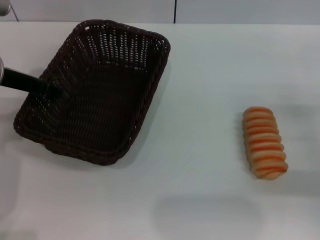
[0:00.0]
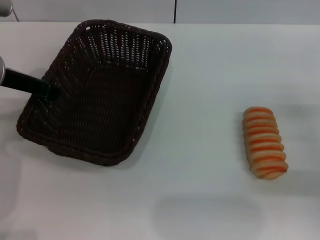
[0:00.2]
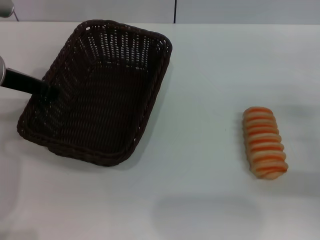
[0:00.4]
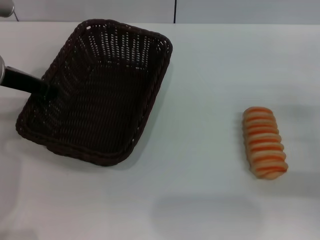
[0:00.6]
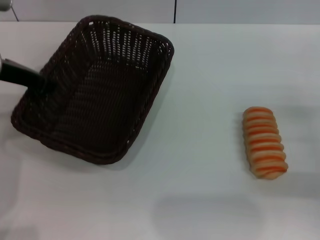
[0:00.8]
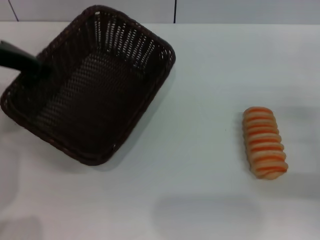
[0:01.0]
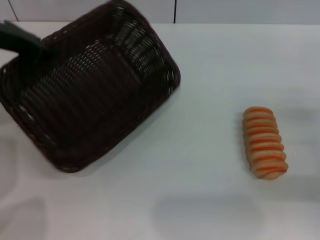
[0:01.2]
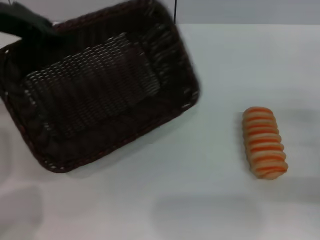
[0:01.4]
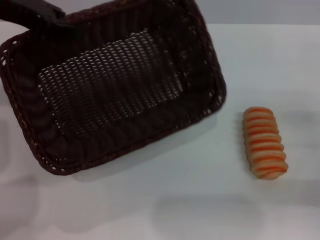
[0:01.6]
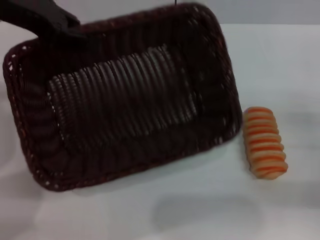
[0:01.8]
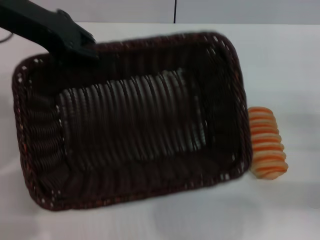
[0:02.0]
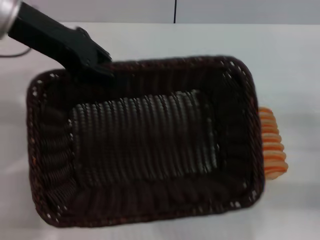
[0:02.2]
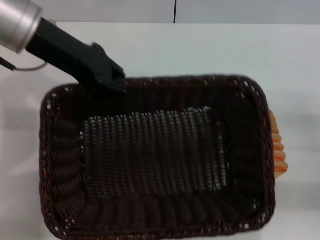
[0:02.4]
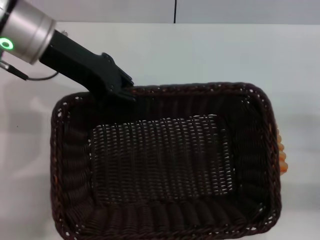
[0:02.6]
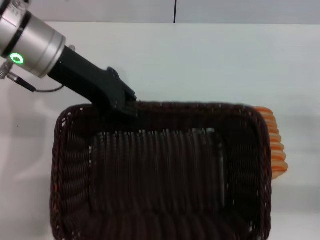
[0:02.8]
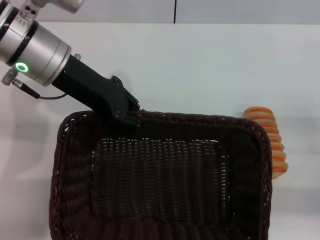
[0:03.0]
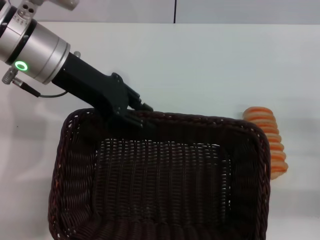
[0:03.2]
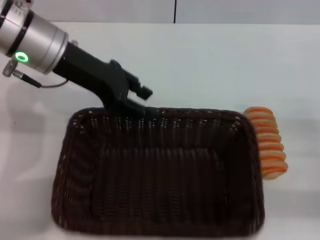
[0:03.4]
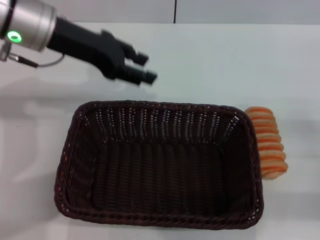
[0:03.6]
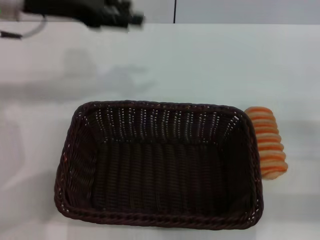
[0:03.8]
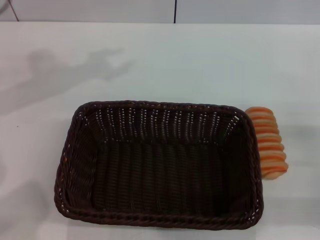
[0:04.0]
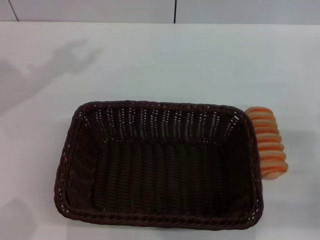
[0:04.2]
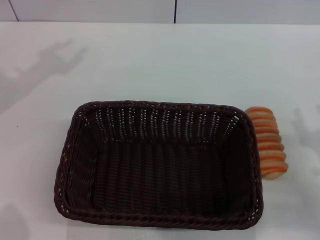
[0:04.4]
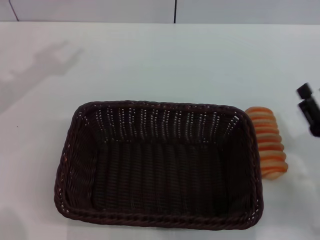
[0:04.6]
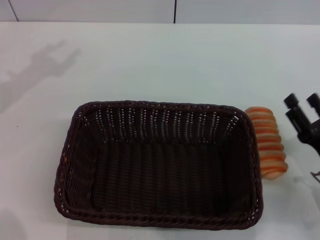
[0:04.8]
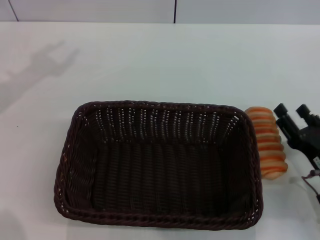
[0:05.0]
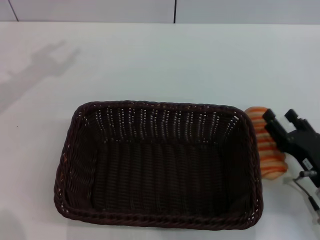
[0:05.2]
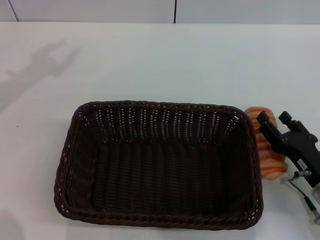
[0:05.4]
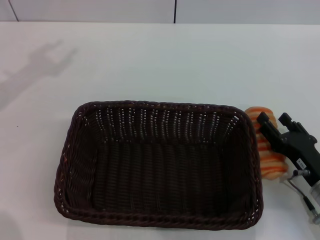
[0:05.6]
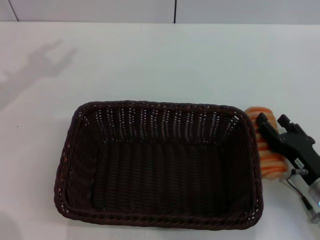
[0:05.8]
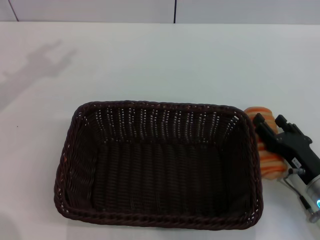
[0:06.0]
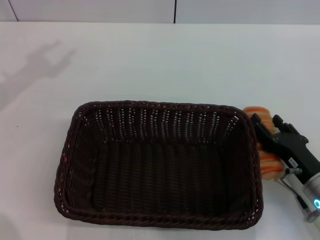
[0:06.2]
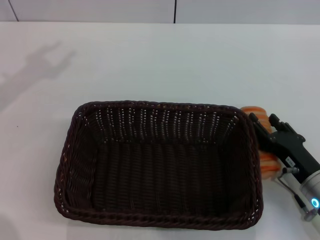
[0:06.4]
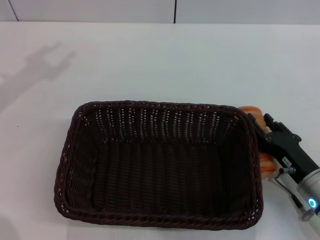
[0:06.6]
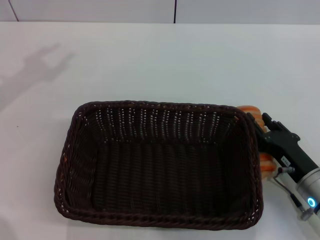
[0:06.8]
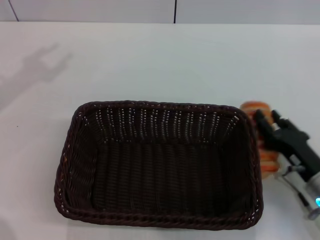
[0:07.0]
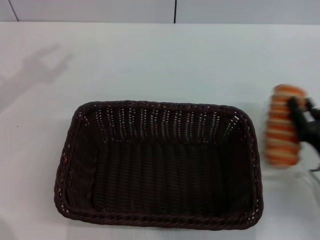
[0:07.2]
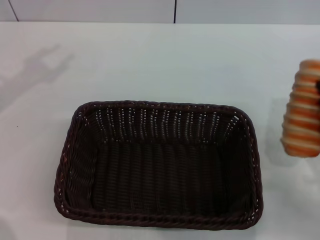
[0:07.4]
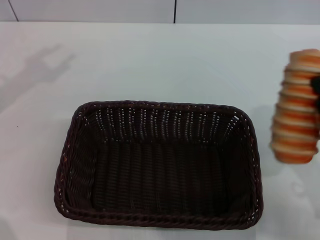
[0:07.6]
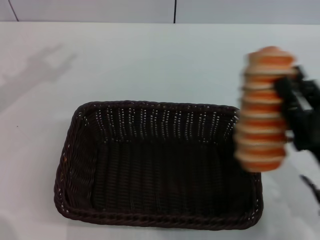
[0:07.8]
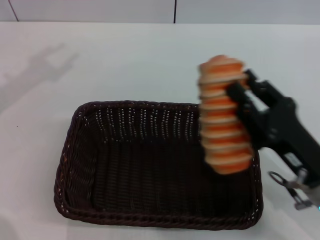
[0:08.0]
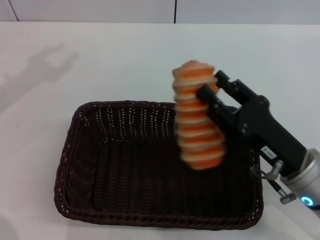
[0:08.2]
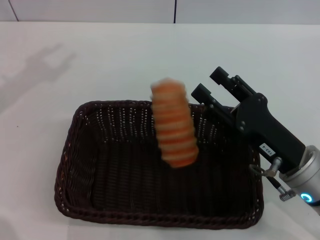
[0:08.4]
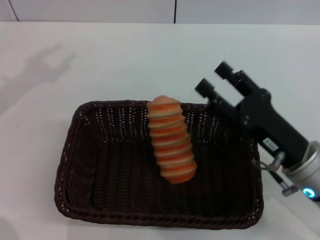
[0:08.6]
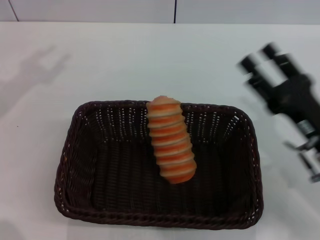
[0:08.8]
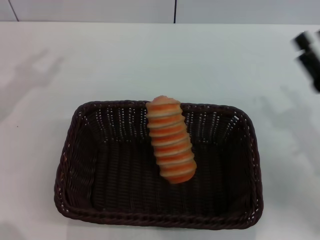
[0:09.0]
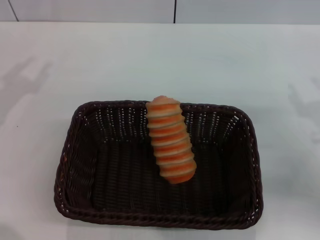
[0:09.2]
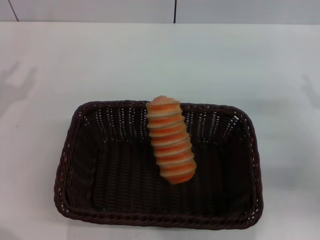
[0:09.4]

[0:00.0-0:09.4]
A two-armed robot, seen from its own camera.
Step, 0.0 to 3.6 s: Place the basket in the center of the table with the left gripper.
Step, 4.0 to 6.6 s: Grasp the long bread with right gripper.
Step, 7.0 to 8.6 s: Place the long bread in the basket with right gripper.
0.0 to 1.6 s: The left gripper moves upward, about 10 cm, and closes.
1.6 to 3.2 s: The left gripper shifts roughly 10 cm to the right and downward.
3.2 to 4.8 s: The left gripper moves to the left, about 15 cm, and opens. The right gripper travels to the left and downward by approximately 10 cm.
4.8 to 6.2 s: The grippers move only a little.
6.2 to 7.8 s: The right gripper heads upward, covering about 10 cm, and closes up.
7.8 to 9.4 s: The right gripper moves to the right and forward, approximately 10 cm, and opens. The left gripper is displaced downward by approximately 15 cm.

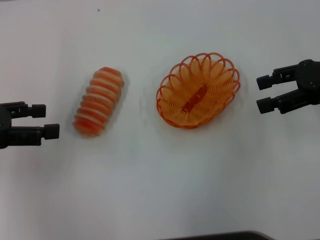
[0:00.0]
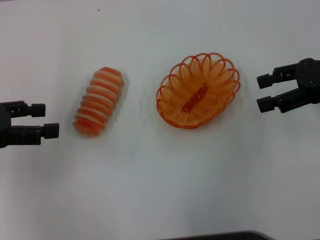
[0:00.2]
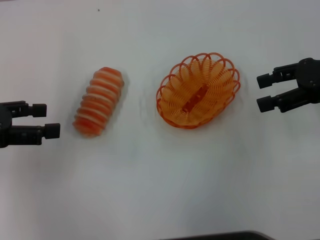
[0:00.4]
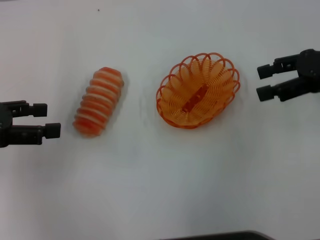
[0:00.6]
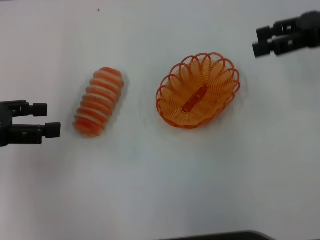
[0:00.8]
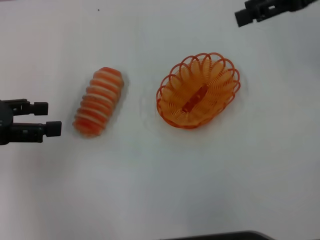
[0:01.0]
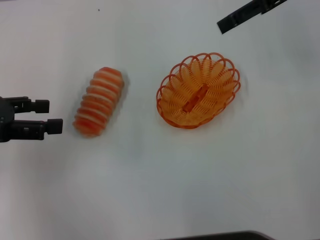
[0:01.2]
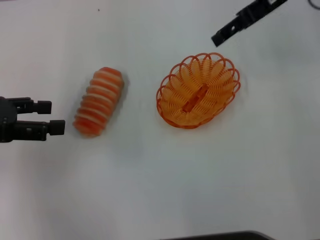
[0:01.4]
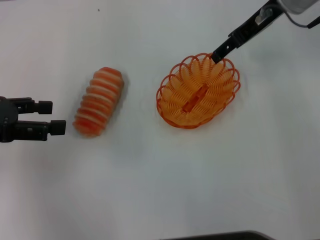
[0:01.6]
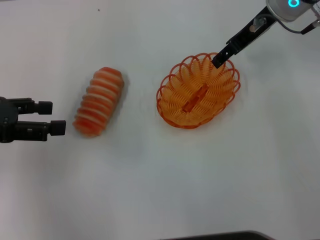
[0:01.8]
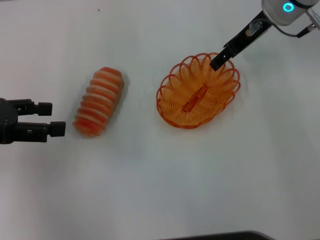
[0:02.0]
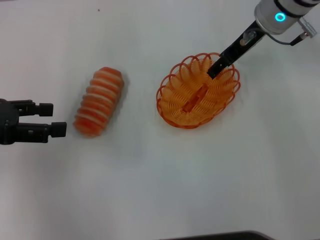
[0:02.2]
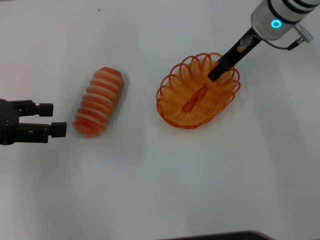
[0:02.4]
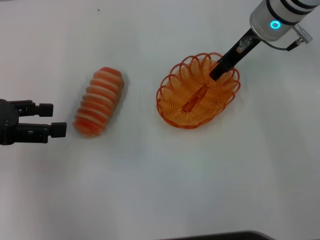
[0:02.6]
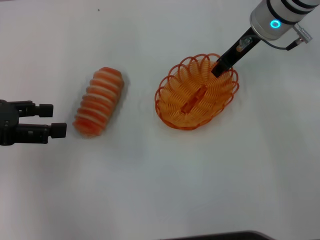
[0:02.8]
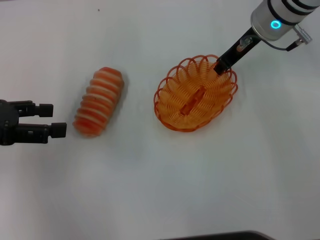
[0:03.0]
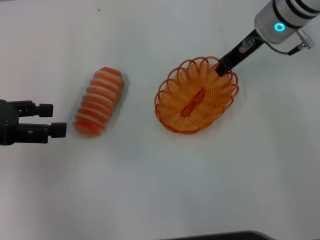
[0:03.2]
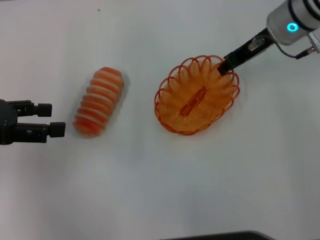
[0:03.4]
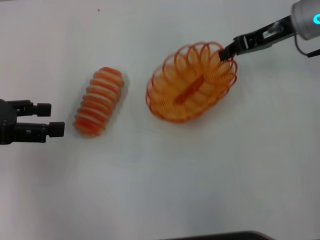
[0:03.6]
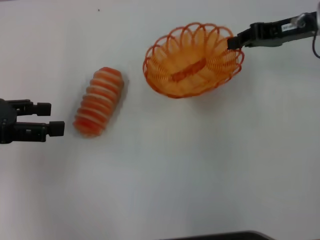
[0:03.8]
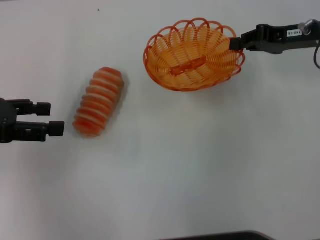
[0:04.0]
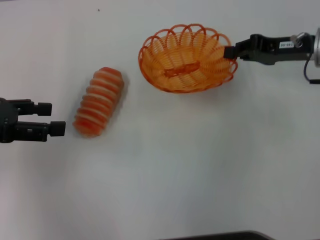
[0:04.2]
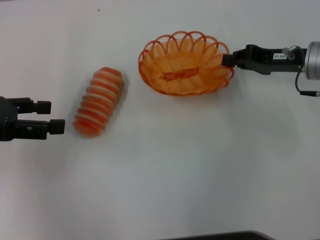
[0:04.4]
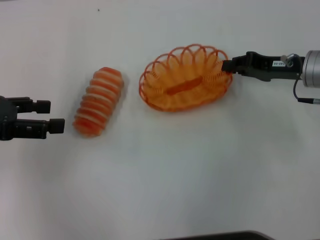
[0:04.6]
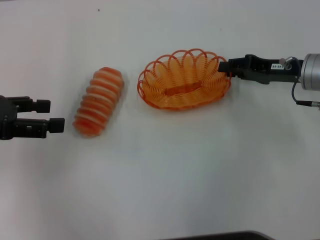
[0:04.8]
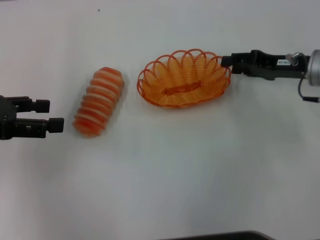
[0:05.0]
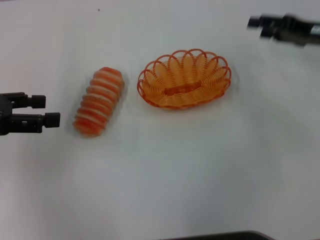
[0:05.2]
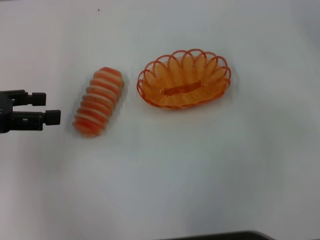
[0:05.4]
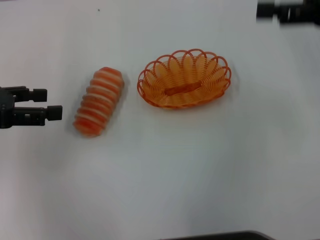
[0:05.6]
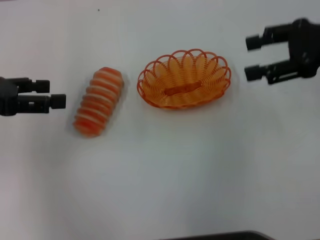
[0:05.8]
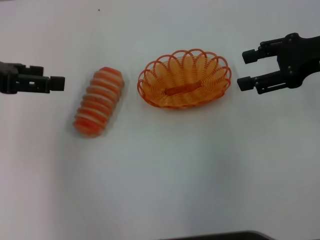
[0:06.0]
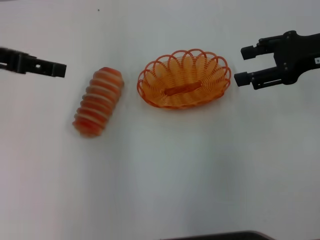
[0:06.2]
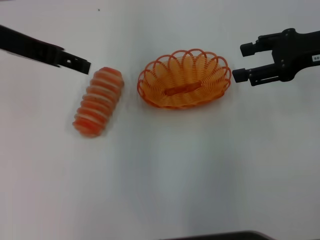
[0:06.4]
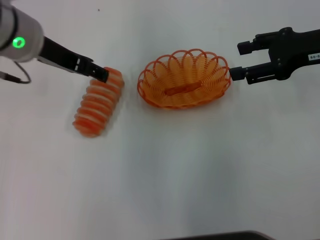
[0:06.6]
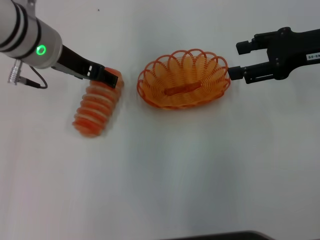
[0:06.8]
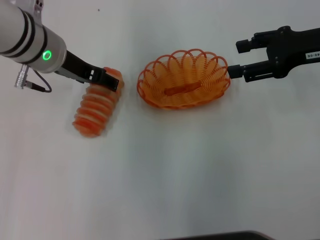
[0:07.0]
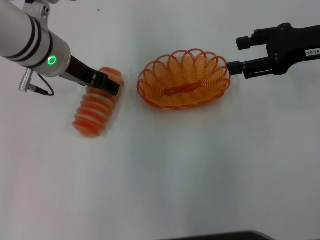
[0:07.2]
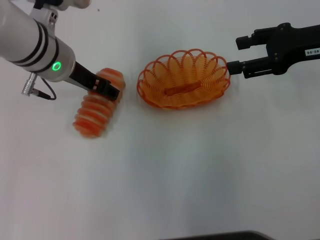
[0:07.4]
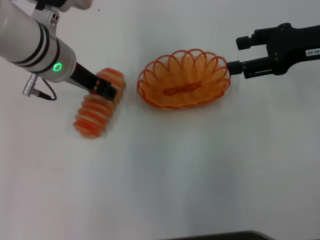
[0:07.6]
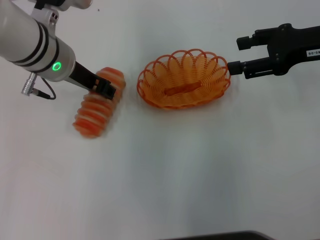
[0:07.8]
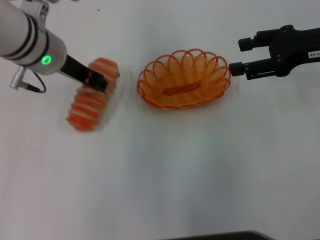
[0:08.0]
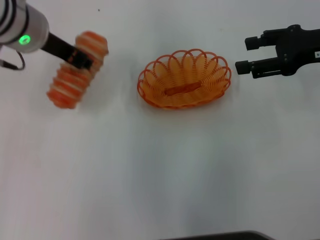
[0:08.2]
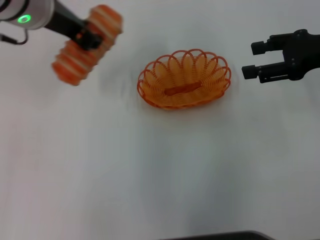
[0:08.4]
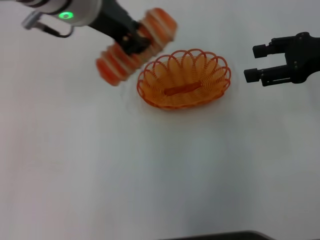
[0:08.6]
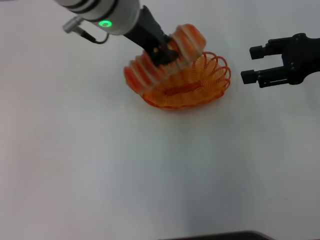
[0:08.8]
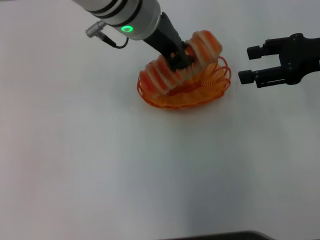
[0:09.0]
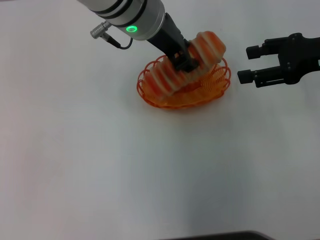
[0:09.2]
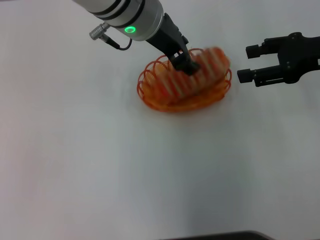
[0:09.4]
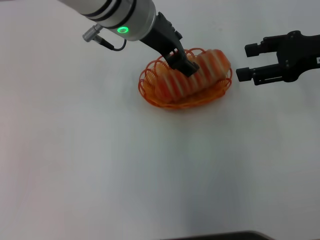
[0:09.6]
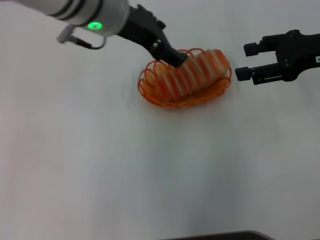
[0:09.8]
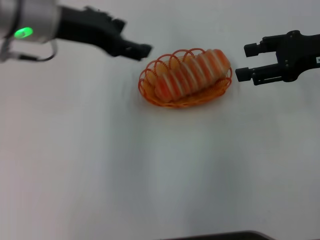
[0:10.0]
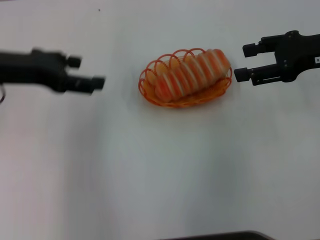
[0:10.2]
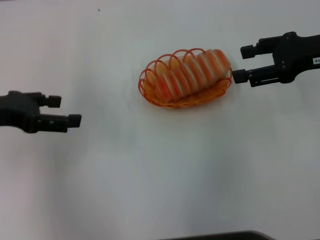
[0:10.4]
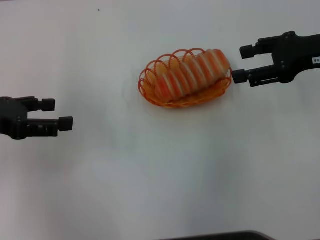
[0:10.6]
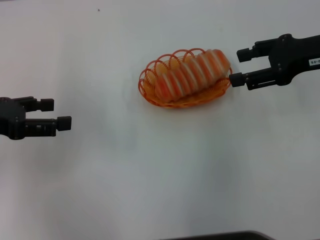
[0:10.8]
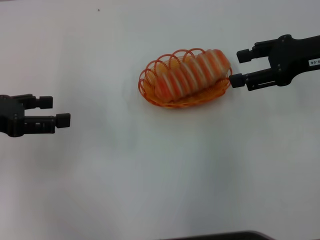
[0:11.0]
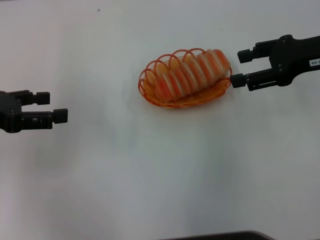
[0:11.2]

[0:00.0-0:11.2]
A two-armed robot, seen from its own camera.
Step, 0.0 to 3.8 s: Pick up the basket with the right gripper.
Step, 4.0 to 5.0 s: Place the basket in the center of view with the right gripper.
Step, 5.2 to 8.2 s: Pick up the long bread with the left gripper.
Step, 8.4 to 9.8 s: Place the long bread into the basket with the left gripper.
0.0 to 1.6 s: The right gripper shifts roughly 15 cm to the left and forward.
1.6 to 3.2 s: The right gripper moves downward, some 5 cm, and closes.
3.2 to 4.8 s: The right gripper is displaced to the right, backward and downward by approximately 15 cm.
4.8 to 6.4 s: The right gripper shifts some 10 cm upward, and opens. Meanwhile the left gripper travels to the right, upward and forward by about 15 cm.
6.4 to 8.0 s: The left gripper travels downward and to the right by approximately 10 cm, and closes its fingers.
8.0 to 9.6 s: The left gripper heads to the right, covering roughly 10 cm.
9.6 to 11.2 s: The left gripper heads to the left, covering roughly 25 cm, and opens up.

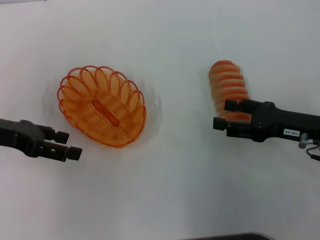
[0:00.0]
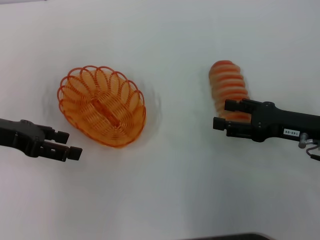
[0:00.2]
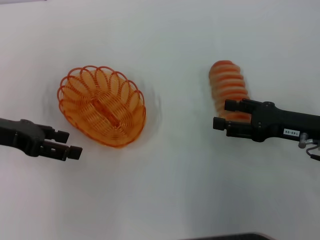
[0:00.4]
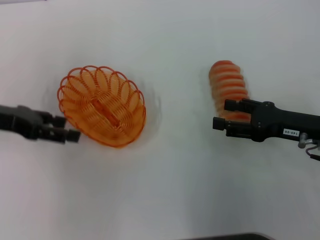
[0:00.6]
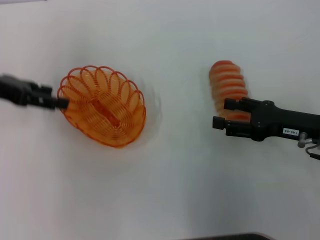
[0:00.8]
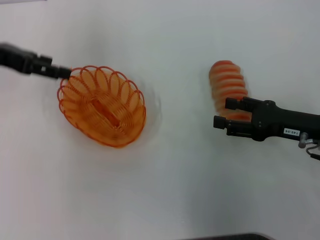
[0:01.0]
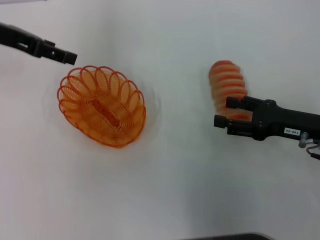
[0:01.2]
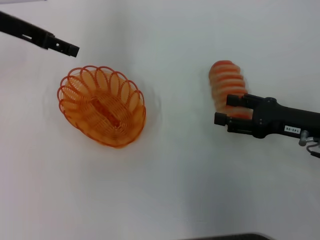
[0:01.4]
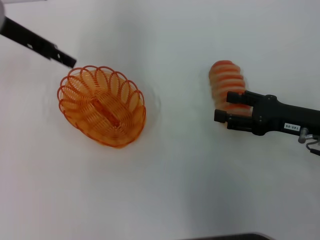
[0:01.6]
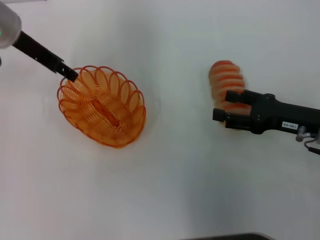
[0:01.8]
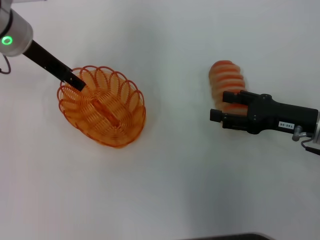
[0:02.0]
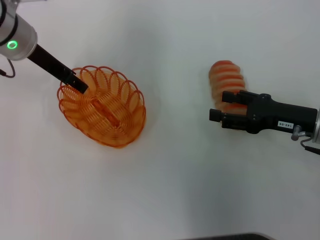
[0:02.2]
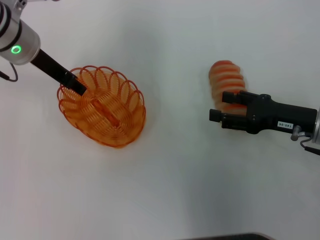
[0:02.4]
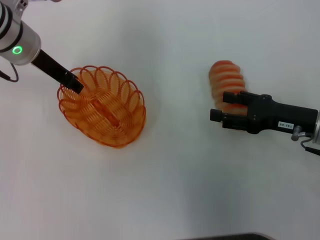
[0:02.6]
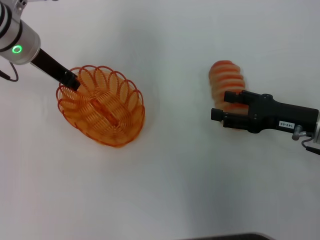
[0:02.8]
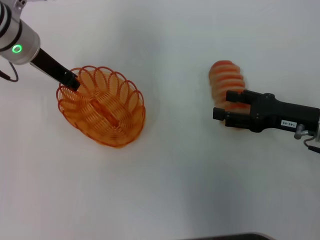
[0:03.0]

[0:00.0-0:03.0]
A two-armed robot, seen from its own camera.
0.0 to 1.6 s: The left gripper goes some 15 cm forward, upward and to the right.
1.6 to 3.0 s: The left gripper changes place by approximately 5 cm, and closes.
